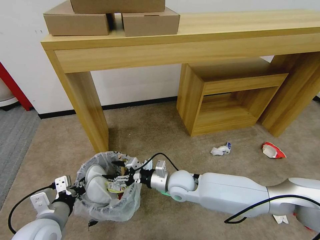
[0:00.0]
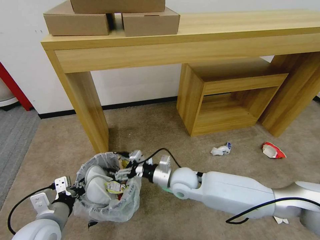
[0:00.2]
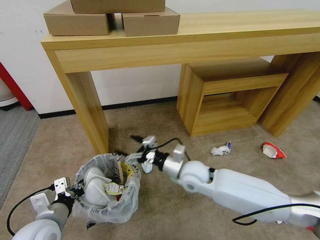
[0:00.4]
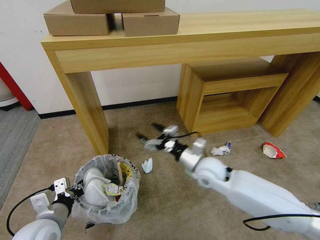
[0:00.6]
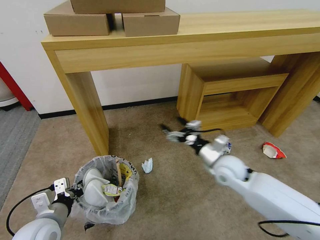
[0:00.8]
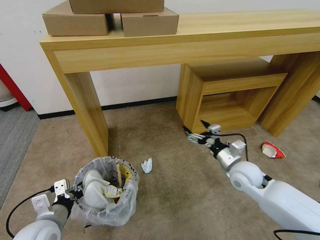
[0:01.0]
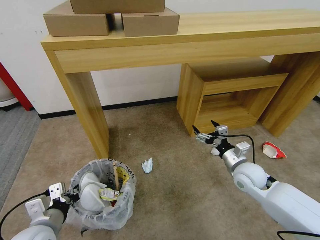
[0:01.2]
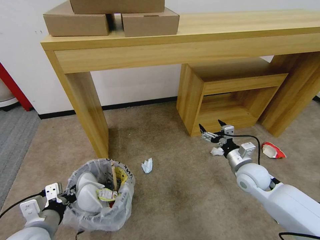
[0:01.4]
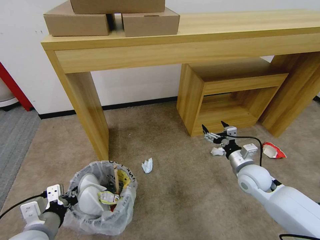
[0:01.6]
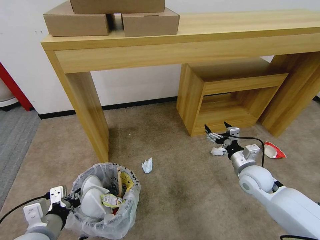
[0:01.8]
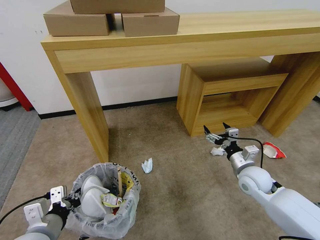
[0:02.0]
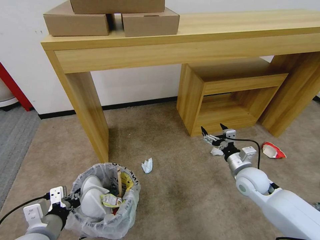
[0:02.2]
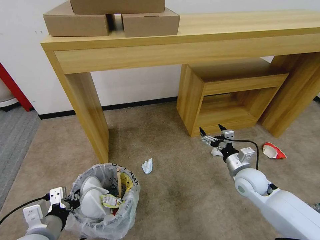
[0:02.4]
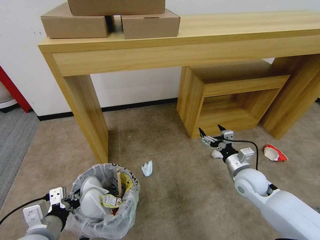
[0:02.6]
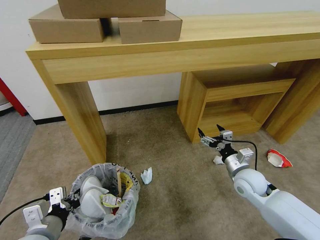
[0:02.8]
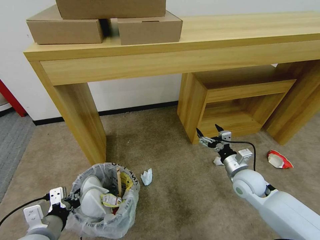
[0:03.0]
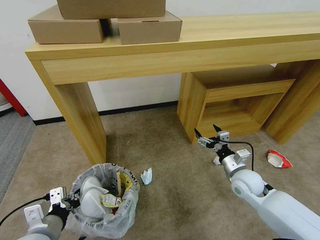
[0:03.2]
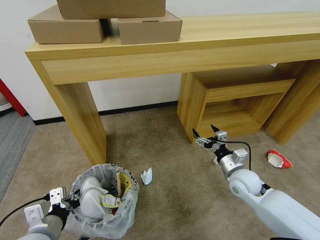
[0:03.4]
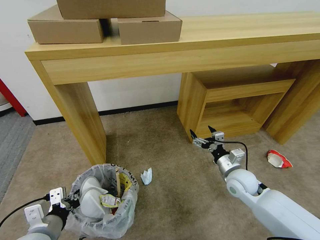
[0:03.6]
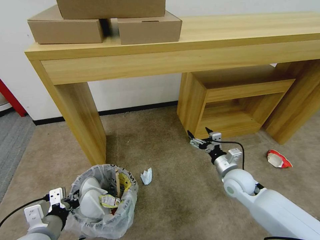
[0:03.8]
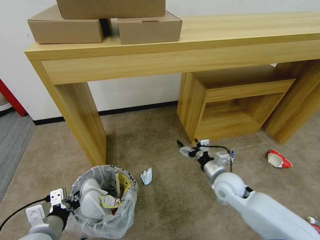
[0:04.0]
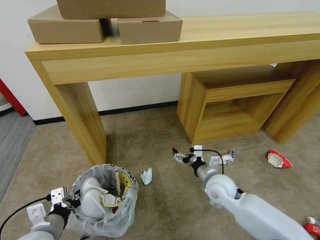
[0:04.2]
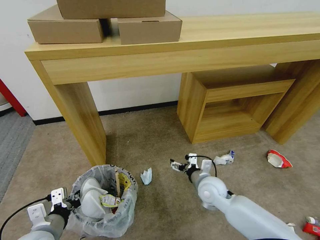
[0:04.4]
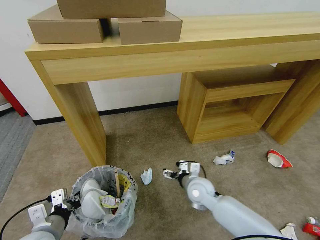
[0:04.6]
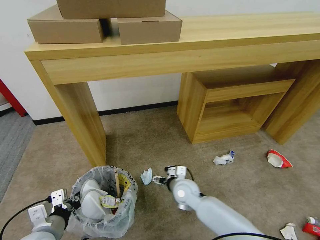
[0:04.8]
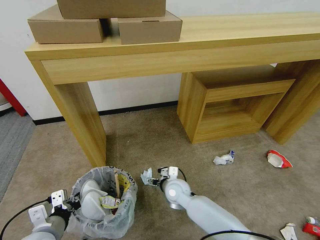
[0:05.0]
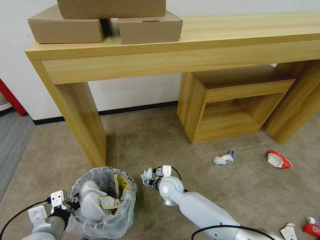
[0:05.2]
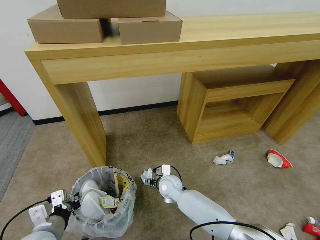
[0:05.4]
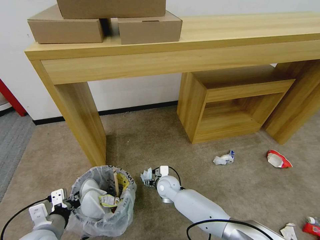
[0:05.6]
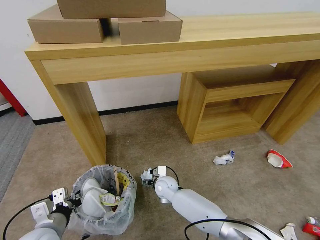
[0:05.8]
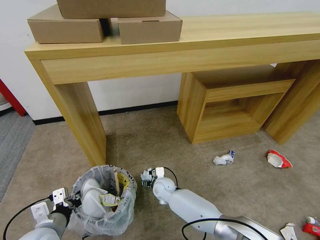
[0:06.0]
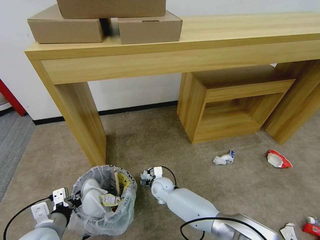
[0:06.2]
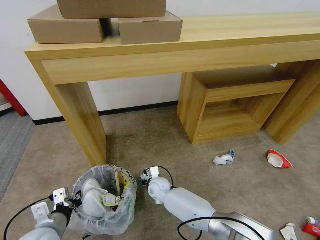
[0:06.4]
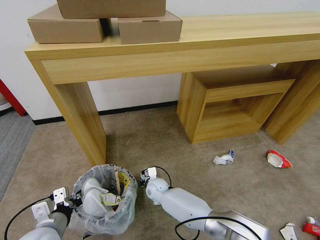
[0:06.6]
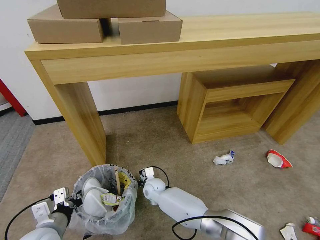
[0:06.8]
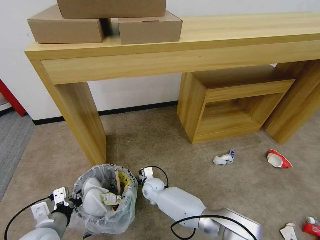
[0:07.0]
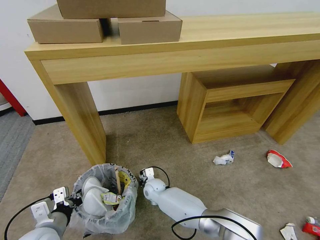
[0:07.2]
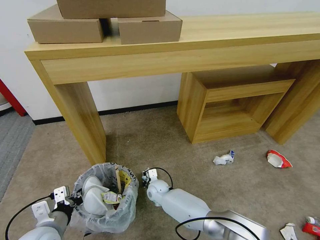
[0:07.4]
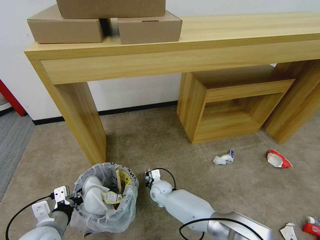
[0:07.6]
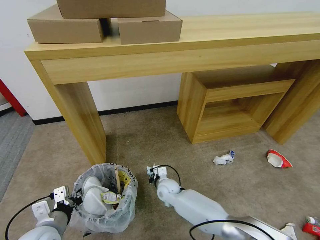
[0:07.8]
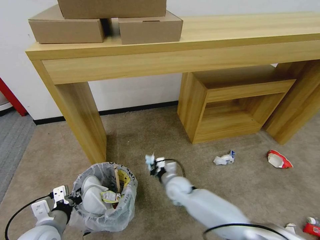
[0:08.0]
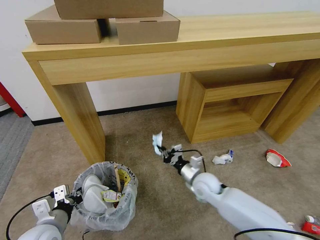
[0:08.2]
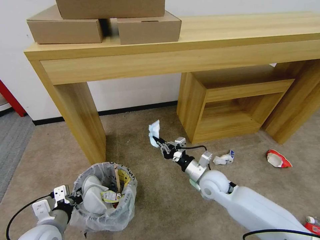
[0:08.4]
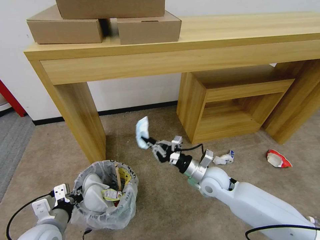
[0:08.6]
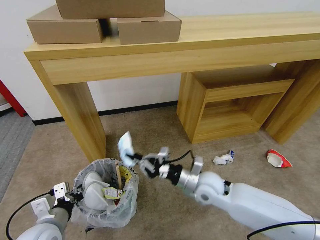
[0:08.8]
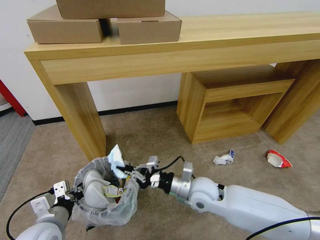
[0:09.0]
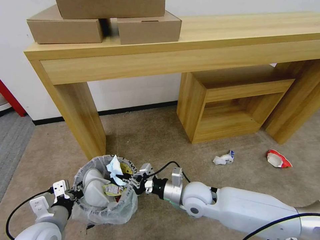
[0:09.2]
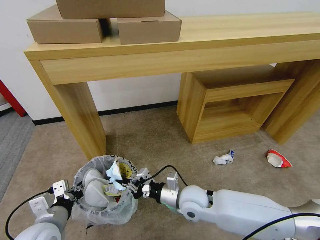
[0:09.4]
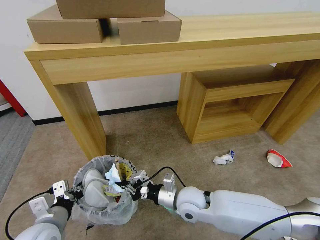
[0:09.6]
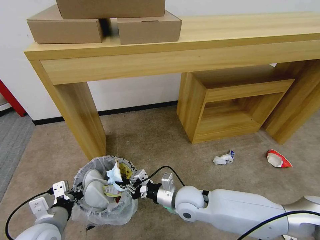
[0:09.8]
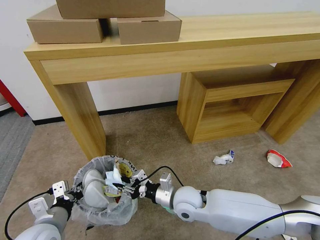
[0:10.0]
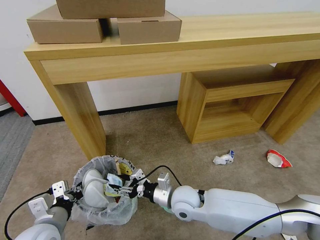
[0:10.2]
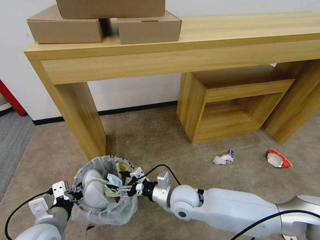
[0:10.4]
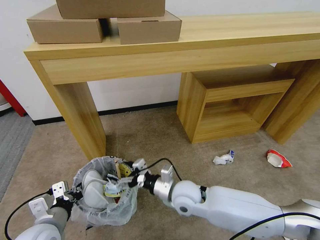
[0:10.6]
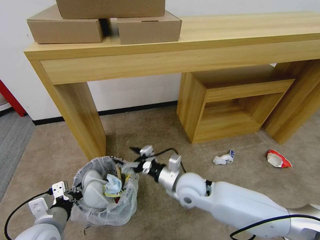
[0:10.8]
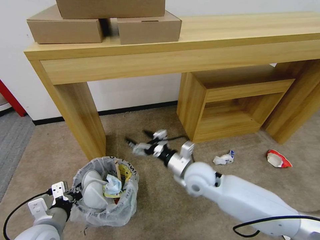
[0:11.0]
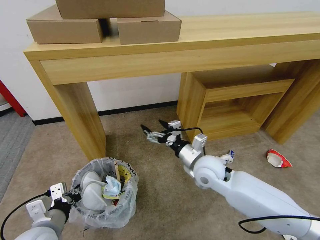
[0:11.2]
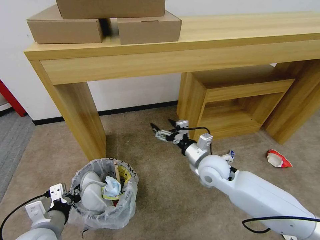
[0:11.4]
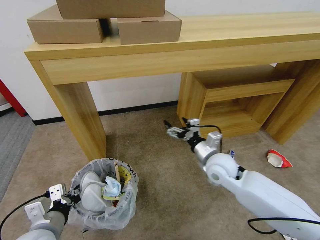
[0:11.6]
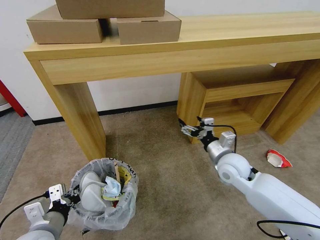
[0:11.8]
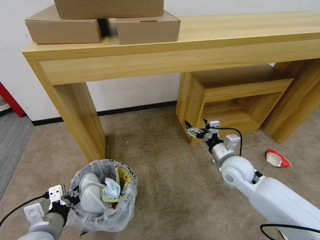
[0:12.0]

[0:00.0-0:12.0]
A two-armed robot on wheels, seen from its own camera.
Task of the whole recording: Pick up the trash bin and place the garbage on the floor into it.
0:00.0 to 0:01.6: The right gripper shifts about 25 cm to the right.
0:03.0 to 0:04.4: The right gripper moves to the left, some 10 cm.
0:04.4 to 0:06.0: The right gripper moves to the left and downward, approximately 20 cm.
0:06.0 to 0:07.6: The right gripper closes its fingers.
0:07.6 to 0:09.0: The right gripper is displaced upward, to the right and backward by roughly 25 cm.
0:09.0 to 0:10.4: The right gripper heads to the left, covering about 5 cm, and opens.
0:10.4 to 0:12.0: The right gripper goes approximately 20 cm to the right and forward.

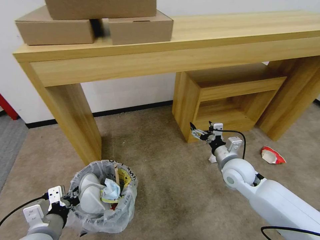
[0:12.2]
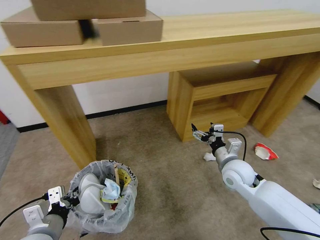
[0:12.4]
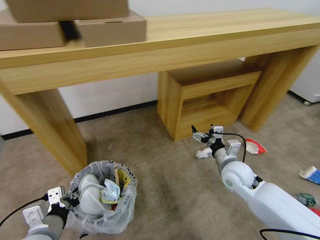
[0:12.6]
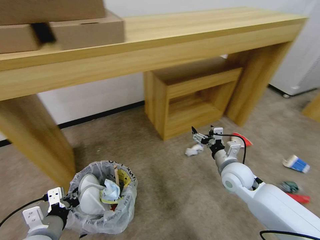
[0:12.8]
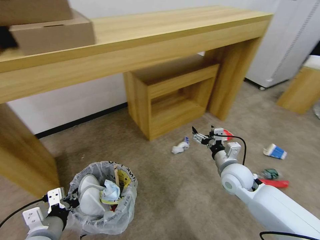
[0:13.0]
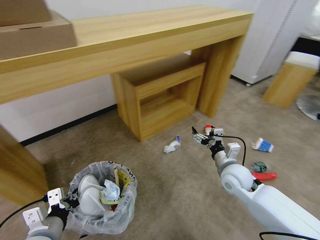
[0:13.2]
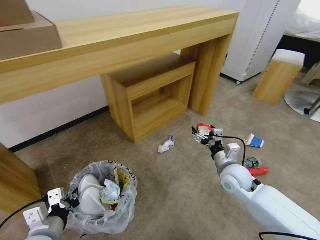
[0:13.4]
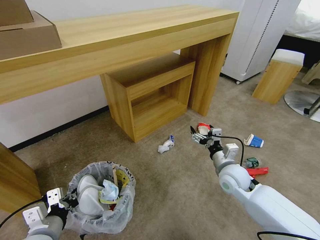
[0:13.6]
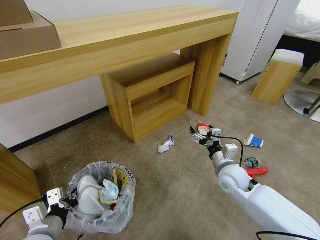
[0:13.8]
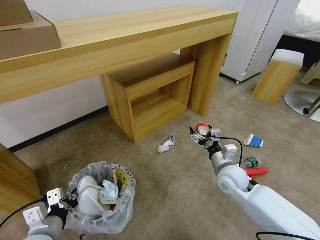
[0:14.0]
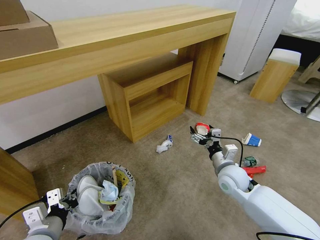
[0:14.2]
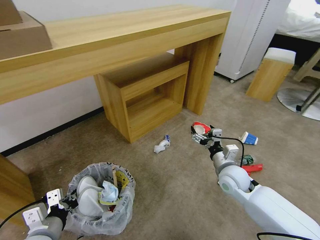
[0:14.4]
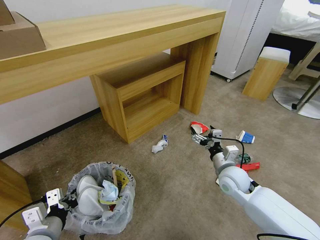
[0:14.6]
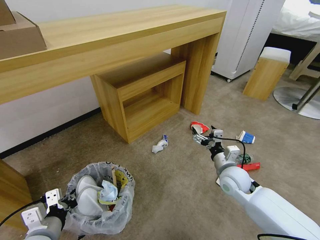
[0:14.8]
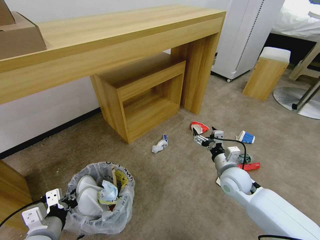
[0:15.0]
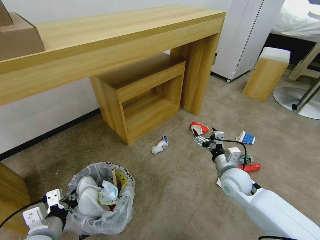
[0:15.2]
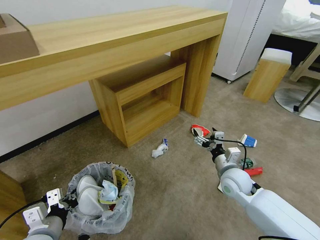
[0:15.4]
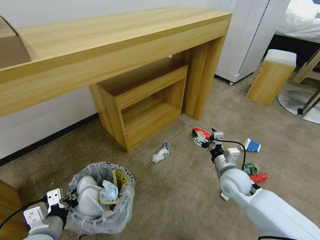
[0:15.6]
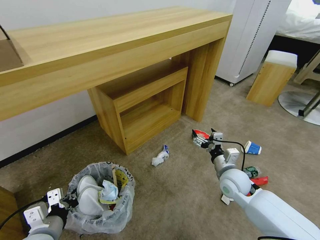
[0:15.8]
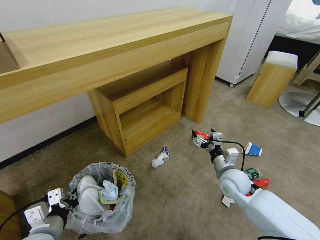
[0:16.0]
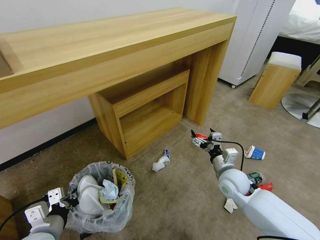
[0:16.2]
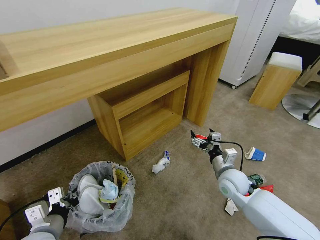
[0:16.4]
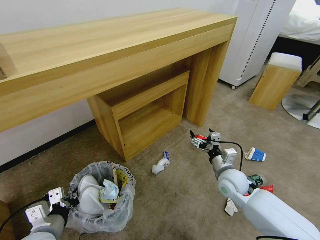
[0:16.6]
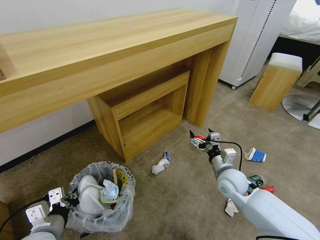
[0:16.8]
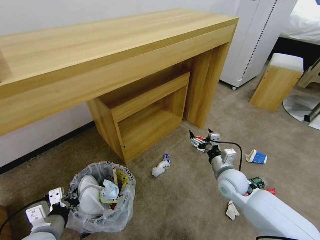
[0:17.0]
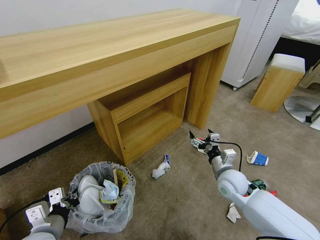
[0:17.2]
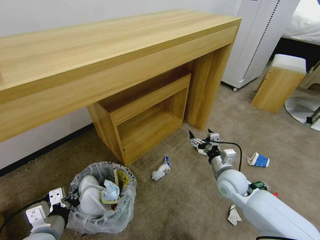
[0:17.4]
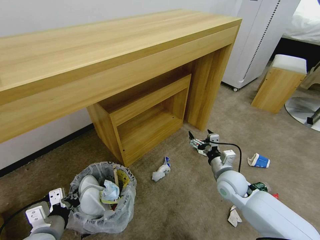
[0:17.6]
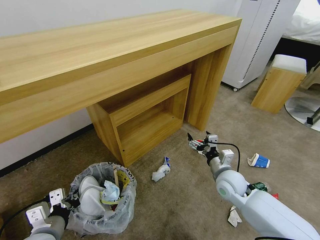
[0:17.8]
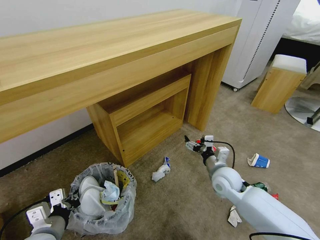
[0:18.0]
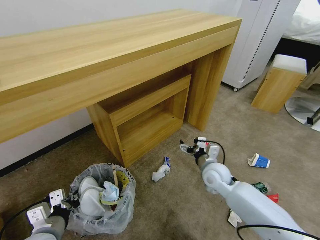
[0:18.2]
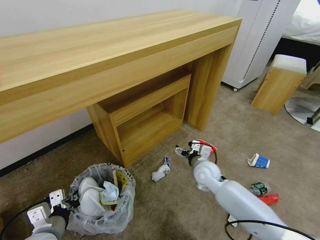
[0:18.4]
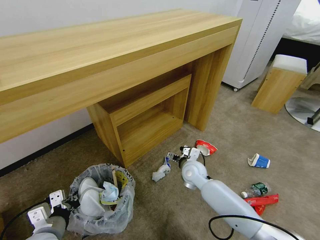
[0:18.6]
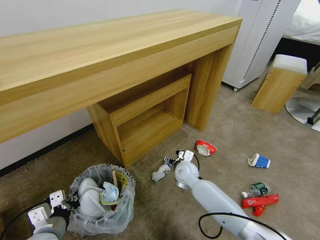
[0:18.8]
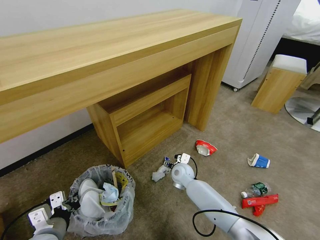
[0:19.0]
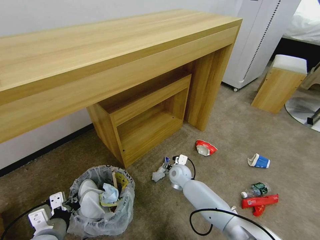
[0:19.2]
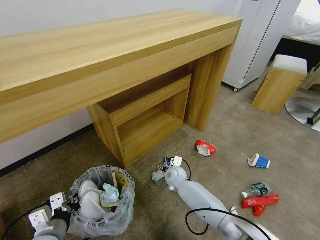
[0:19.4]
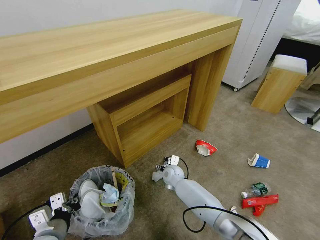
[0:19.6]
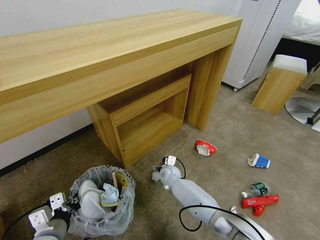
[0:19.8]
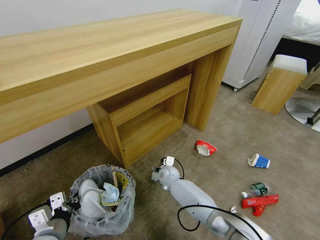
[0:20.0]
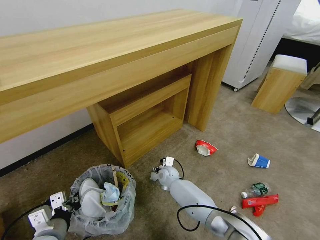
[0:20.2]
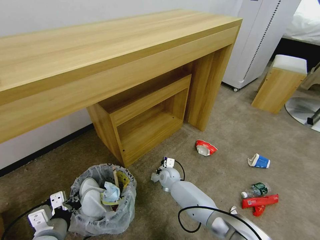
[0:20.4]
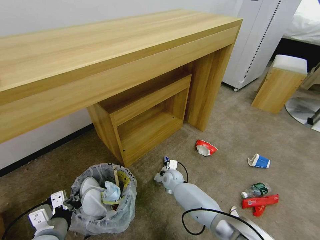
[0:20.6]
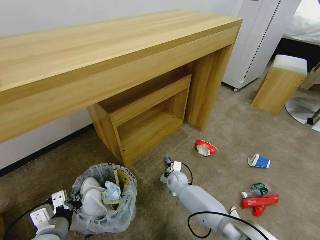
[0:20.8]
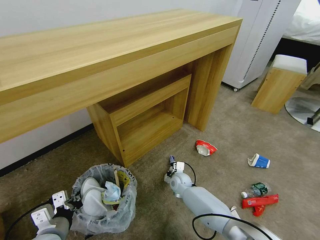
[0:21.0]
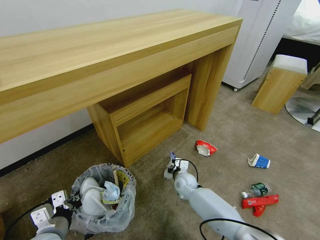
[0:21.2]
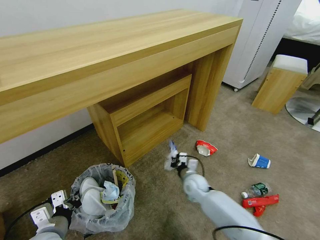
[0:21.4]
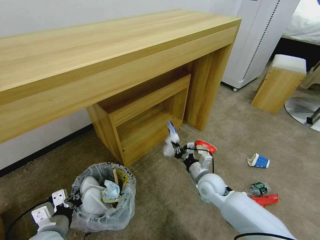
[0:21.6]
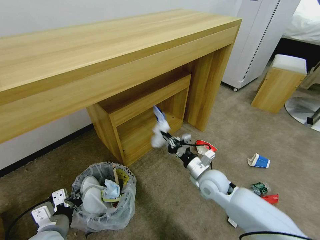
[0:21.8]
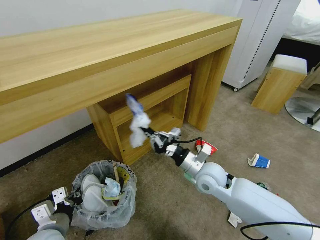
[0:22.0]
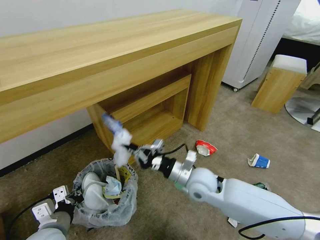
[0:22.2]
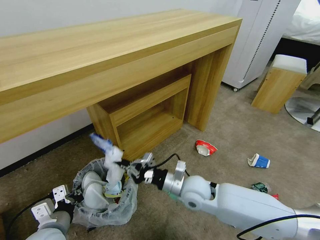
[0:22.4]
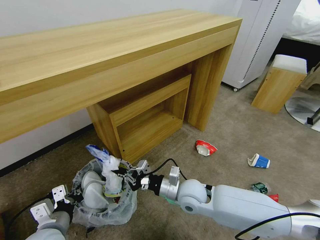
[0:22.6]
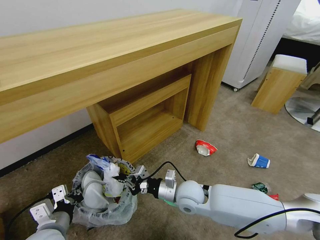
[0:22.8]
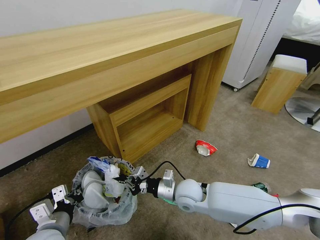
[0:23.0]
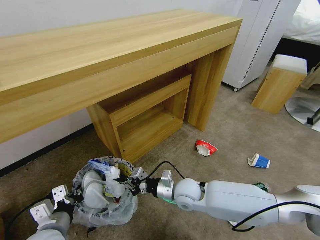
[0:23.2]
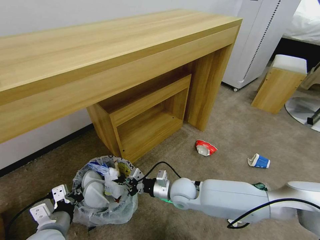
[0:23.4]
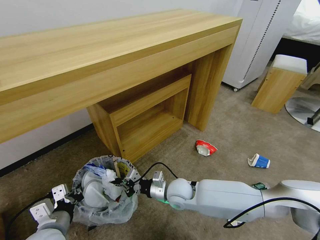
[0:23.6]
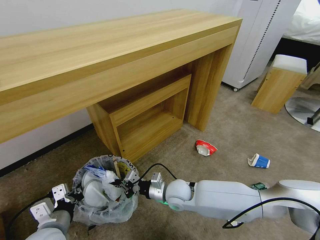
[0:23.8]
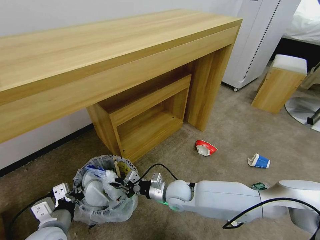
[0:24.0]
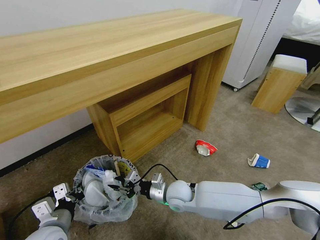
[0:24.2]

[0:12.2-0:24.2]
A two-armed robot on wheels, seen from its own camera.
Task of the whole recording: Pick up the trash bin and place the garbage on the floor into it.
0:13.8 to 0:15.2: The grippers make only small movements.
0:16.6 to 0:18.2: The right gripper ends up some 5 cm from where it was.
0:18.2 to 0:19.8: The right gripper is displaced to the left, downward and forward by roughly 20 cm.
0:19.8 to 0:21.2: The right gripper moves to the right, some 5 cm, and closes up.
0:21.2 to 0:22.6: The right gripper heads upward and backward, covering approximately 15 cm.
0:22.6 to 0:24.2: The right gripper heads downward, covering some 5 cm, and opens up.
